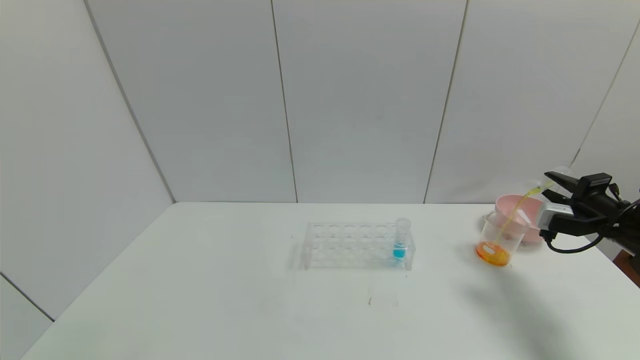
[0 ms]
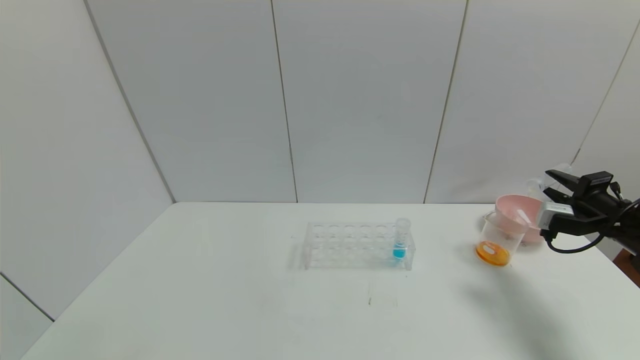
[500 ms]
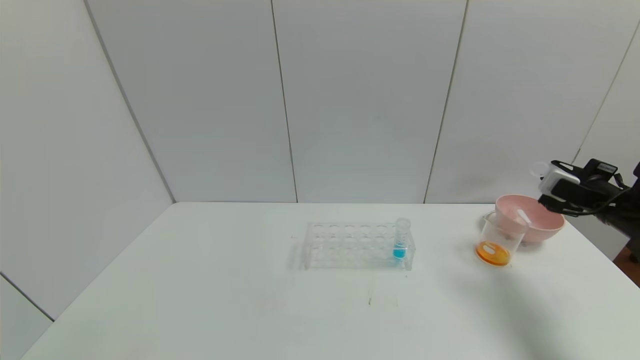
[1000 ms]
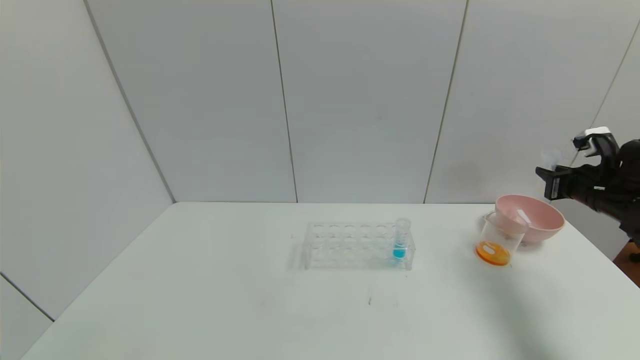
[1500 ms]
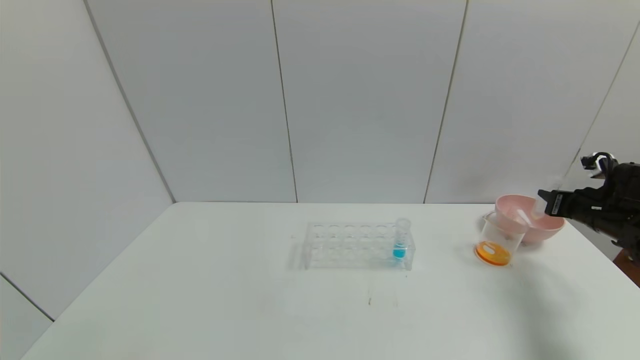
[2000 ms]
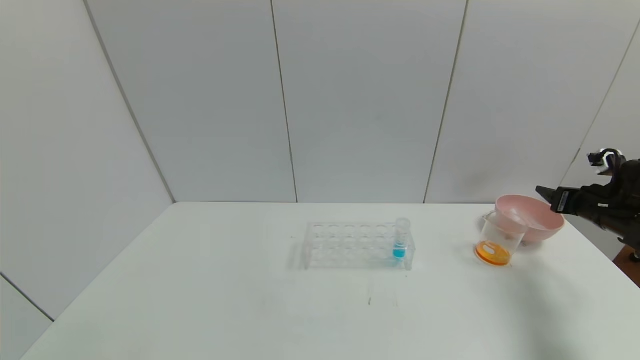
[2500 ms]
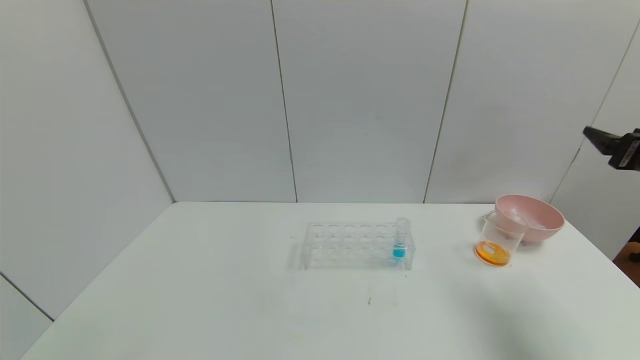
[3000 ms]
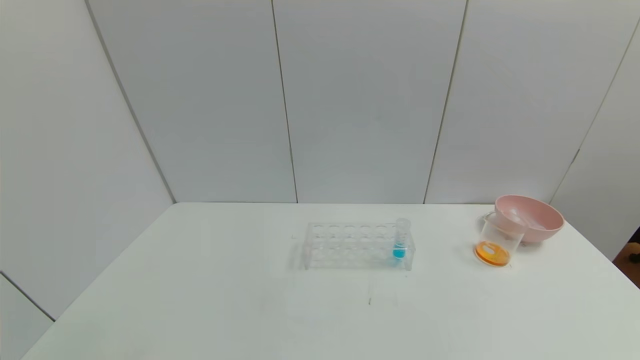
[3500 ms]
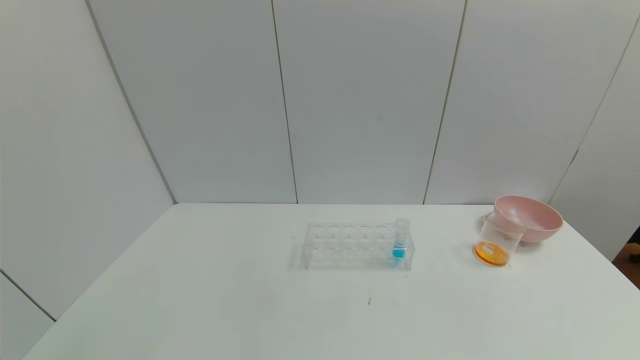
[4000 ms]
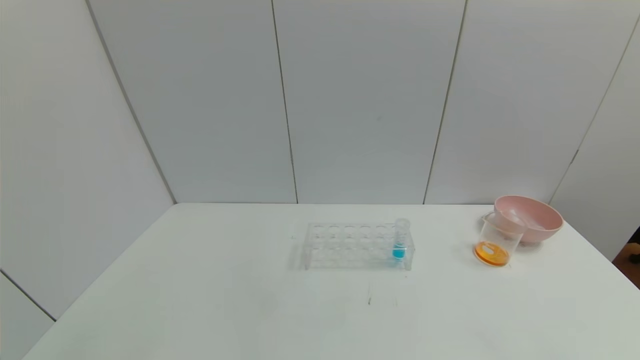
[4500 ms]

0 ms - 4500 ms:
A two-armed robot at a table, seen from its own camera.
Task of the whole recording: pick up the test tube with yellow pigment and the test tube with red pigment by grippers and pour them into the beaker.
Step, 1000 ms - 2000 ms: Place the test tube into the bowl with the right gripper.
2000 ms - 4500 ms: The right gripper moves backward, approximately 40 cm, and opens up.
